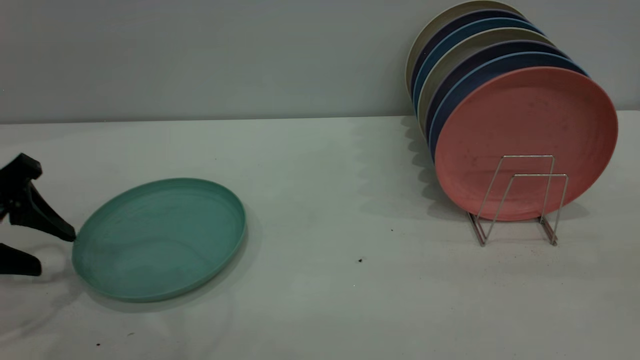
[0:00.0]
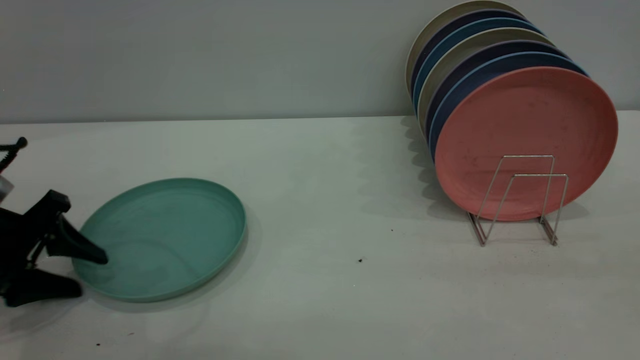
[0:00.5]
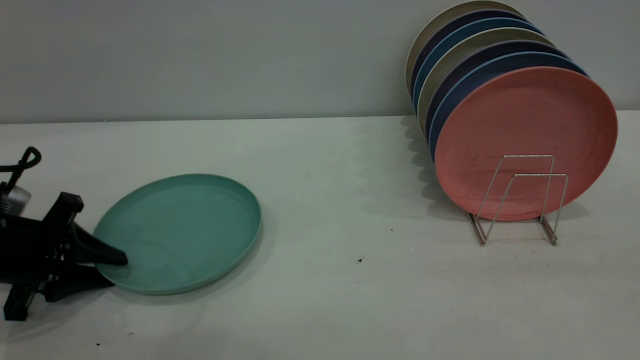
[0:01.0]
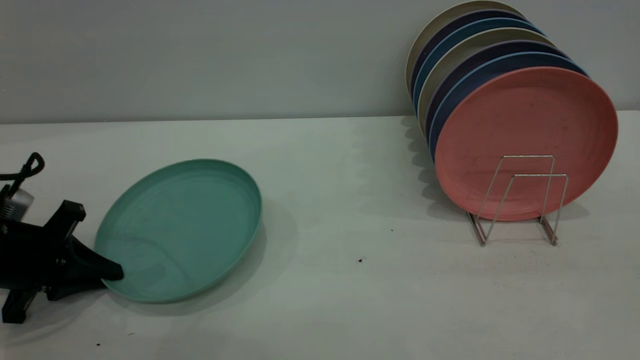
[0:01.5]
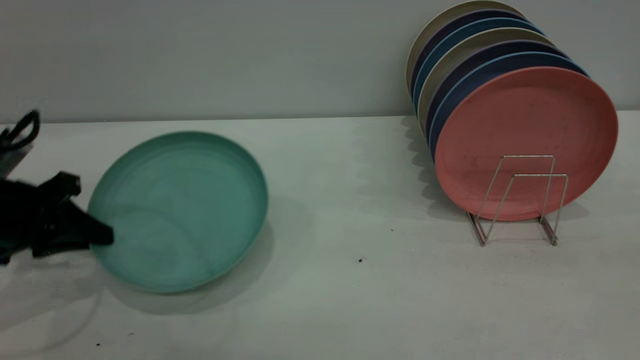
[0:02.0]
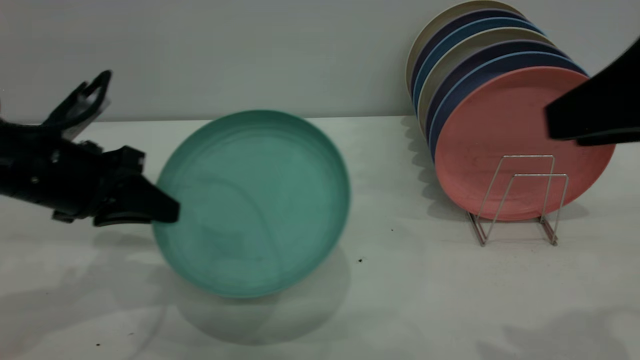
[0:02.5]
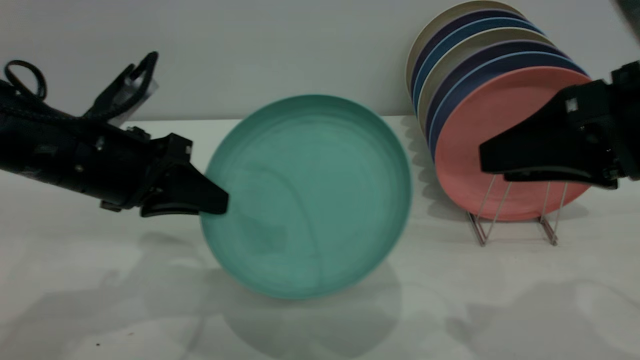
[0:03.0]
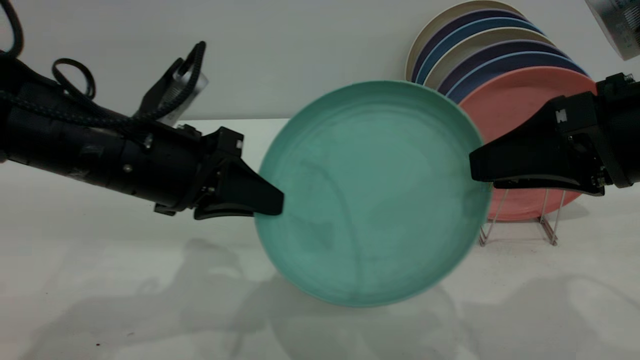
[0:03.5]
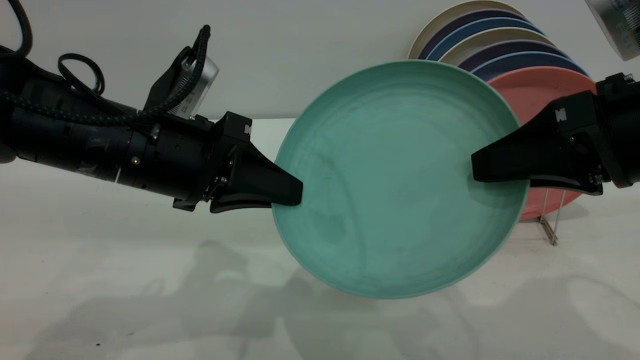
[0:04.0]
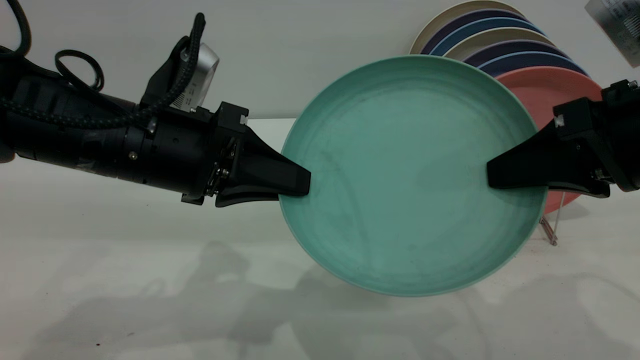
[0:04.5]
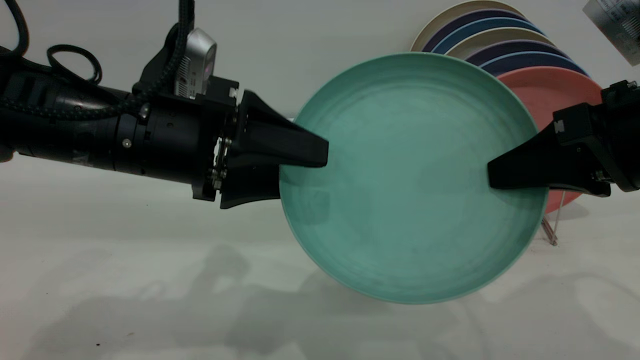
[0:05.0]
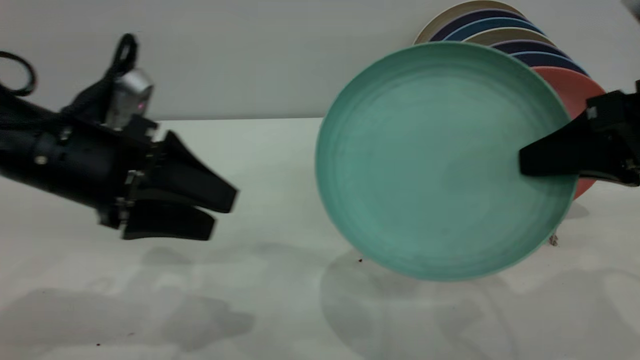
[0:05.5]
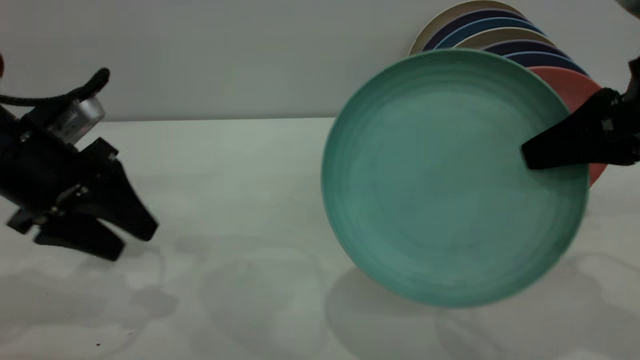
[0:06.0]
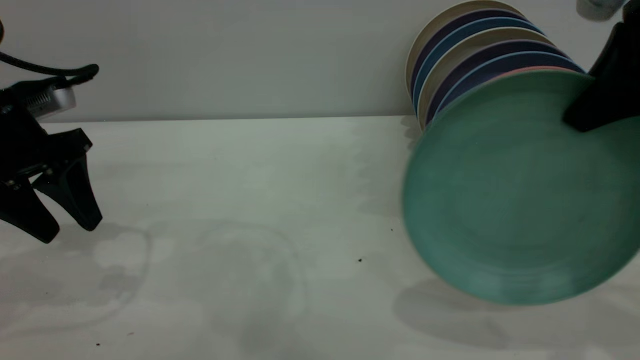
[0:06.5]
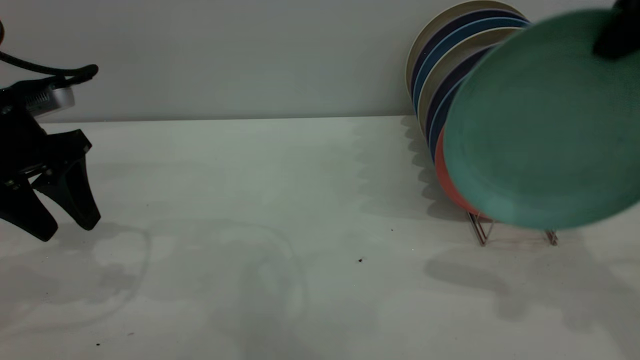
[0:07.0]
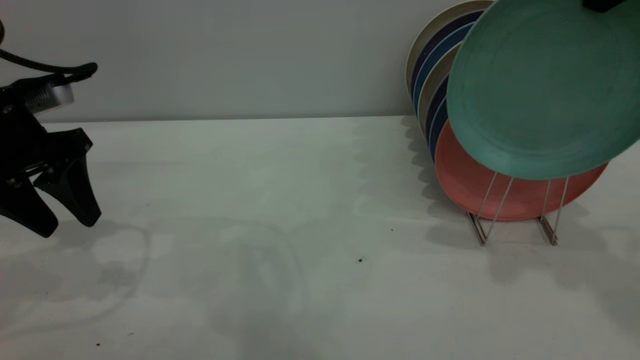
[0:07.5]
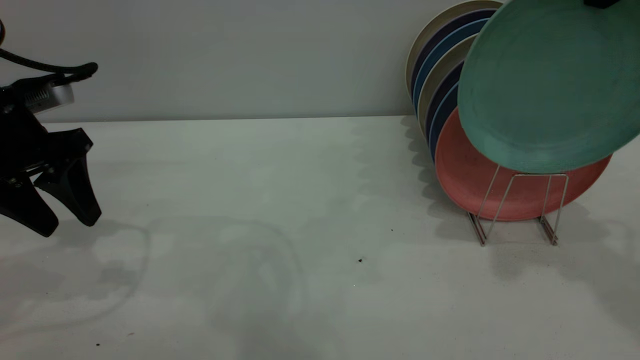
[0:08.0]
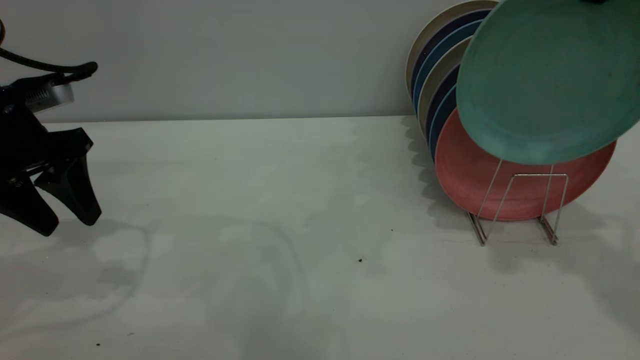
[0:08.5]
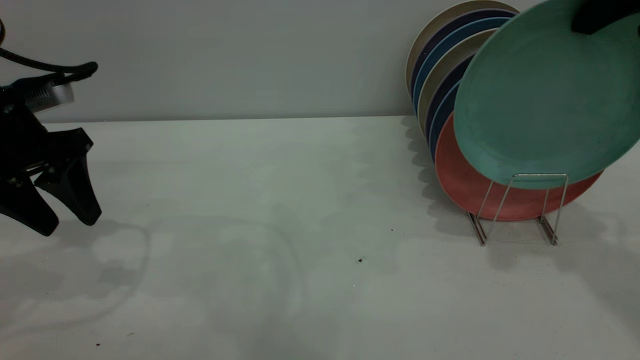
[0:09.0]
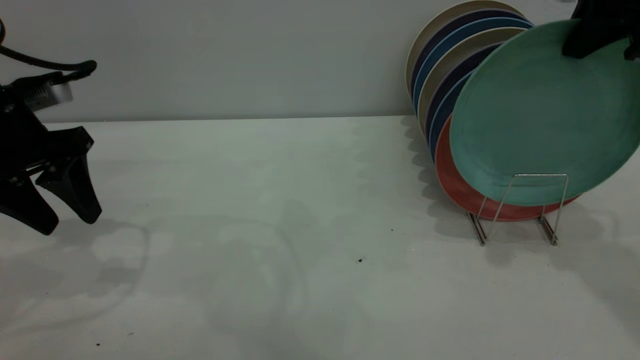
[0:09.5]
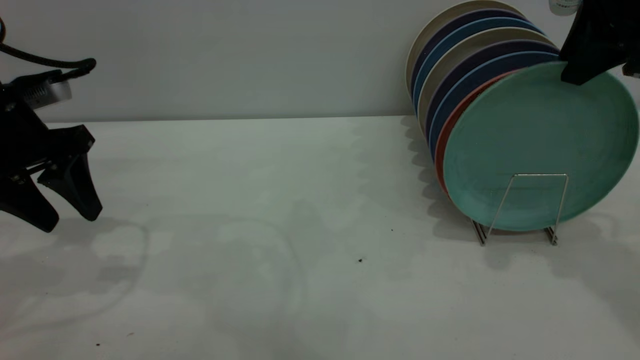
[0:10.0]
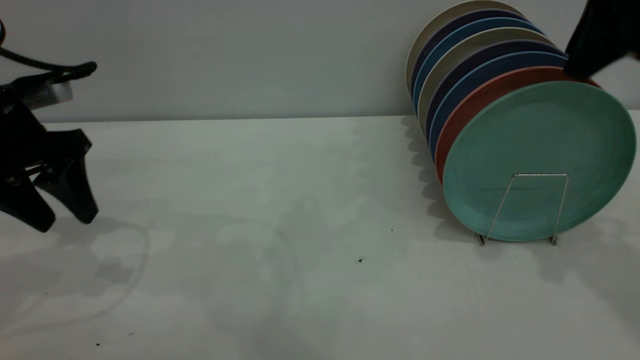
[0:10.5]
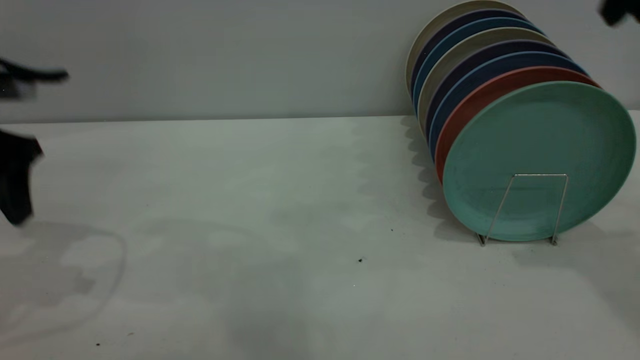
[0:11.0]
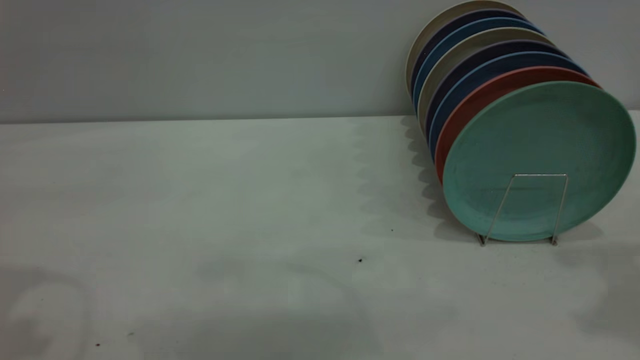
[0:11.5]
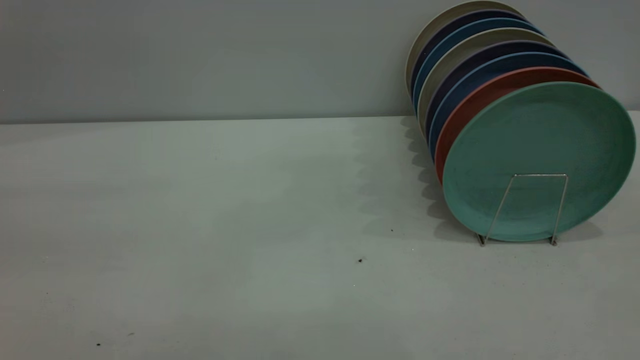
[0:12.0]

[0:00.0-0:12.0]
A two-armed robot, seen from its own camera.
Task of the whole recording: the left gripper grasp the green plate, the left gripper pass the green plate to the right gripper, and the right gripper place the green plate on the plate rack.
Step, 0:02.0 to 0:05.0: Pass the plate from the left gripper to the right gripper.
Step, 0:05.5 to 0:10.5: Place the plate on the shelf.
0:00.0 to 0:02.0: The left gripper moves some 10 cm downward and comes back, and closes its fingers.
0:02.0 to 0:04.0: The right gripper travels downward and forward by roughly 15 cm, and closes its fingers, while the left gripper goes roughly 20 cm to the right.
0:04.0 to 0:06.0: The right gripper closes. Meanwhile the left gripper moves to the left, some 10 cm, and opens.
0:06.0 to 0:08.0: The right gripper shifts roughly 15 cm upward and forward.
0:08.0 to 0:10.0: The right gripper goes roughly 5 cm downward, and opens.
0:10.0 to 0:12.0: Both grippers travel together backward and upward, approximately 30 cm.
